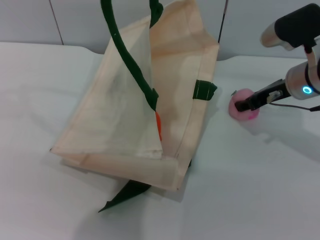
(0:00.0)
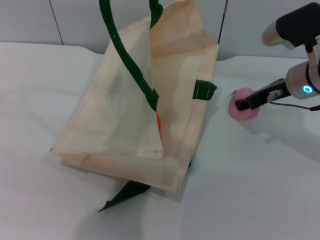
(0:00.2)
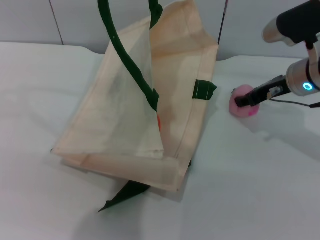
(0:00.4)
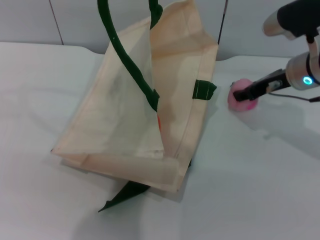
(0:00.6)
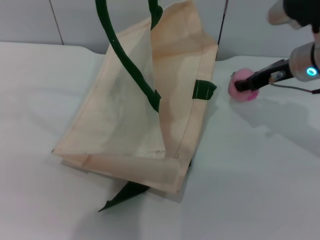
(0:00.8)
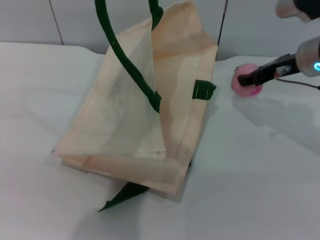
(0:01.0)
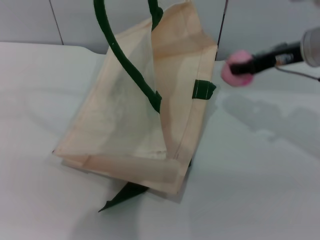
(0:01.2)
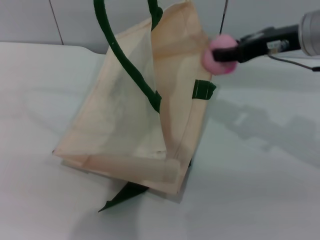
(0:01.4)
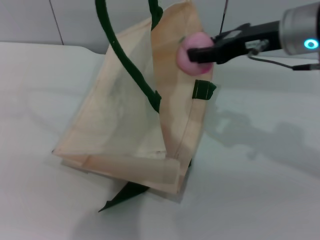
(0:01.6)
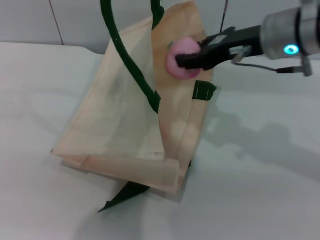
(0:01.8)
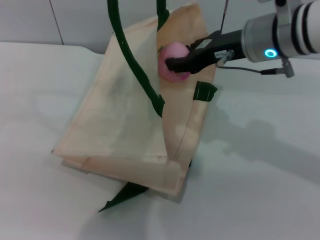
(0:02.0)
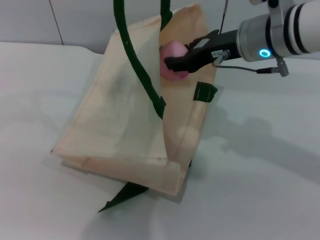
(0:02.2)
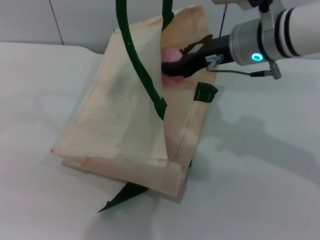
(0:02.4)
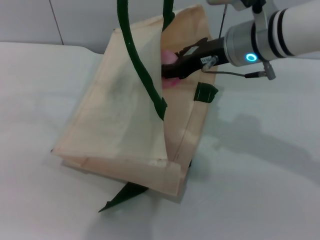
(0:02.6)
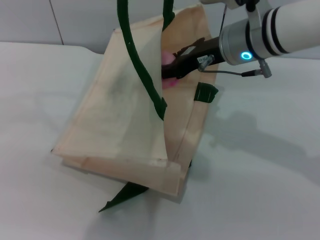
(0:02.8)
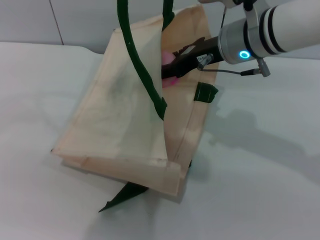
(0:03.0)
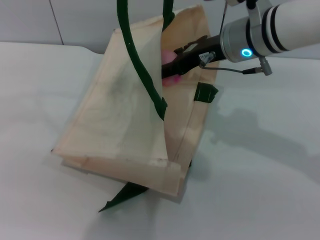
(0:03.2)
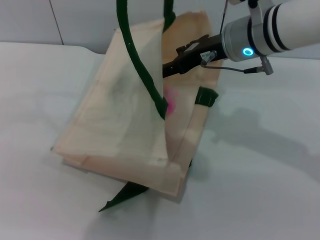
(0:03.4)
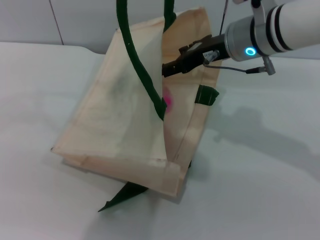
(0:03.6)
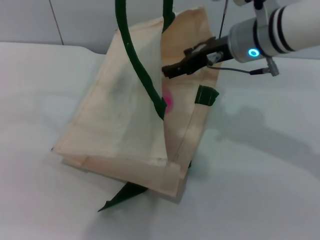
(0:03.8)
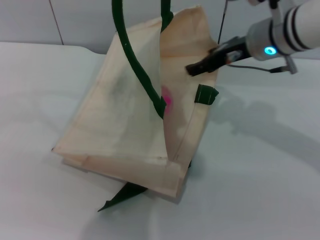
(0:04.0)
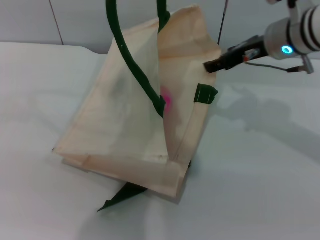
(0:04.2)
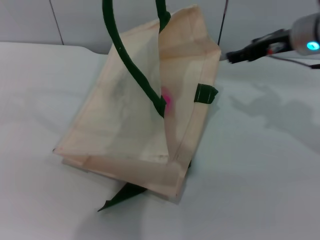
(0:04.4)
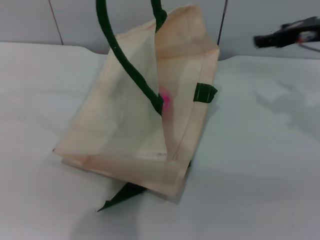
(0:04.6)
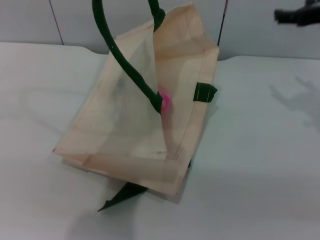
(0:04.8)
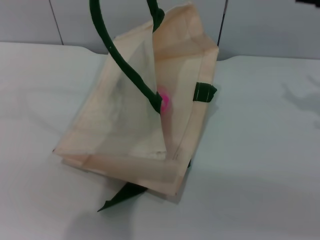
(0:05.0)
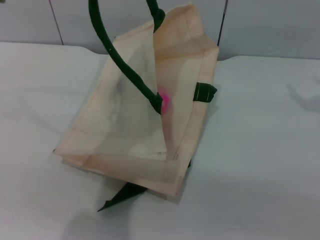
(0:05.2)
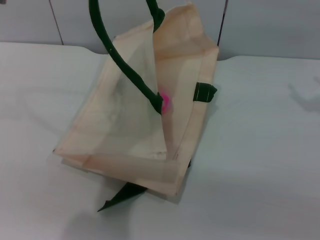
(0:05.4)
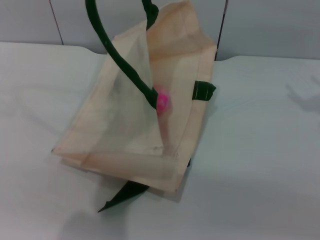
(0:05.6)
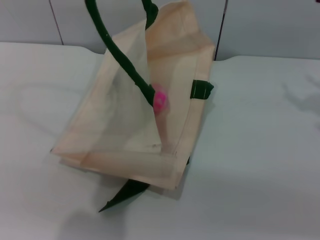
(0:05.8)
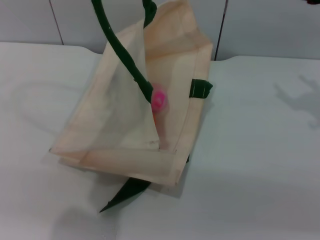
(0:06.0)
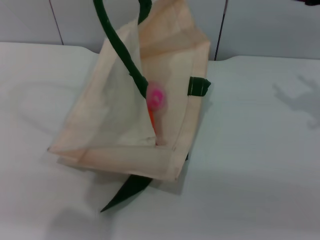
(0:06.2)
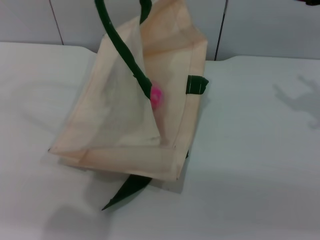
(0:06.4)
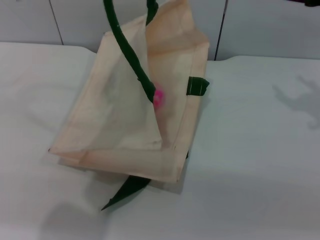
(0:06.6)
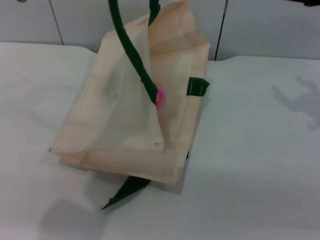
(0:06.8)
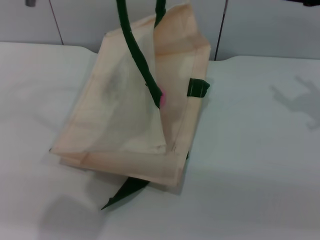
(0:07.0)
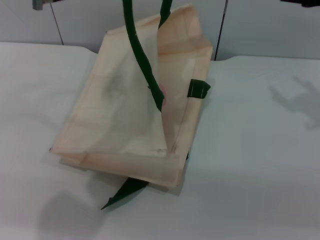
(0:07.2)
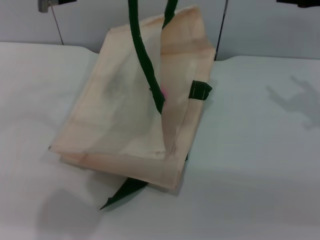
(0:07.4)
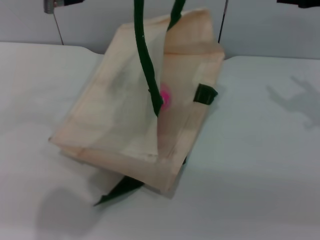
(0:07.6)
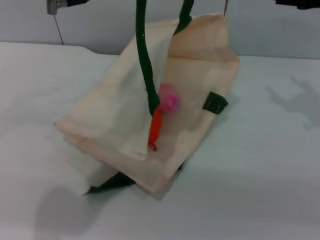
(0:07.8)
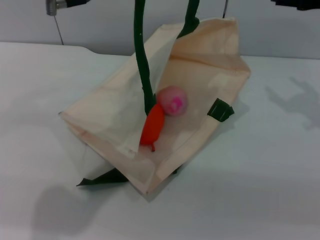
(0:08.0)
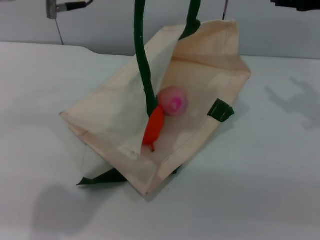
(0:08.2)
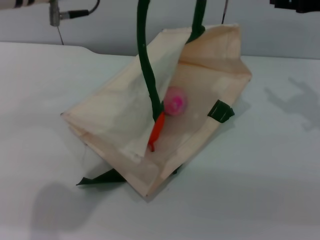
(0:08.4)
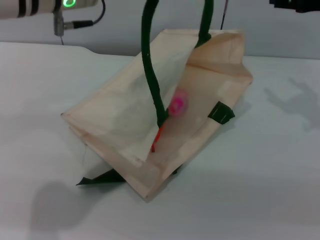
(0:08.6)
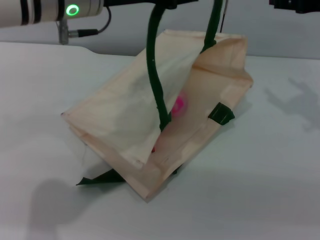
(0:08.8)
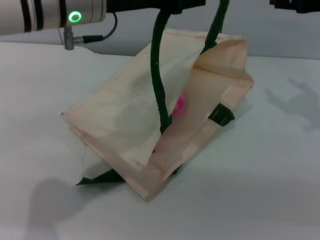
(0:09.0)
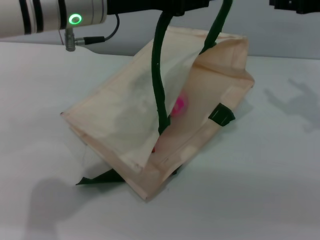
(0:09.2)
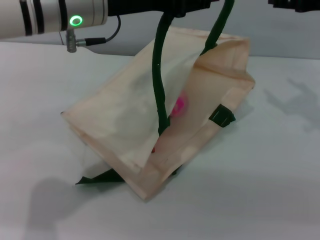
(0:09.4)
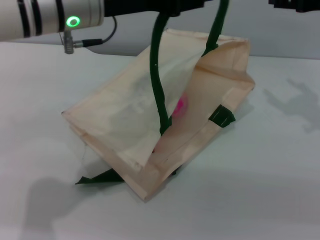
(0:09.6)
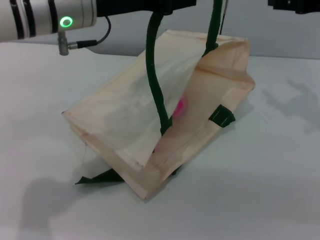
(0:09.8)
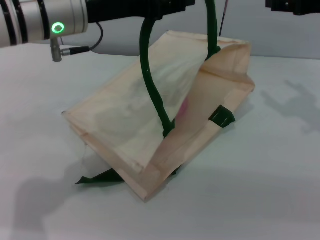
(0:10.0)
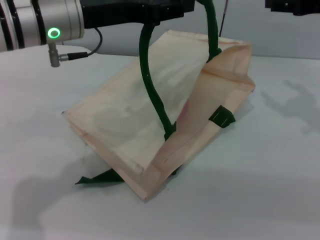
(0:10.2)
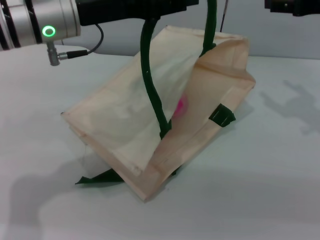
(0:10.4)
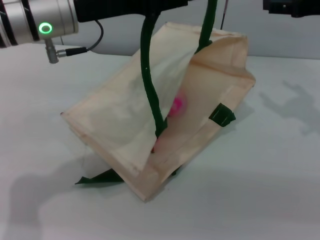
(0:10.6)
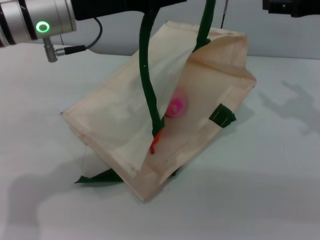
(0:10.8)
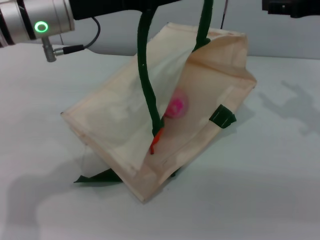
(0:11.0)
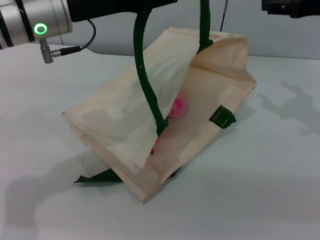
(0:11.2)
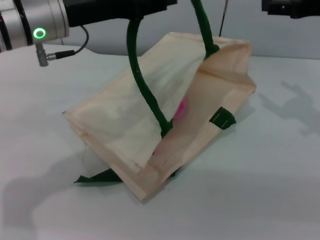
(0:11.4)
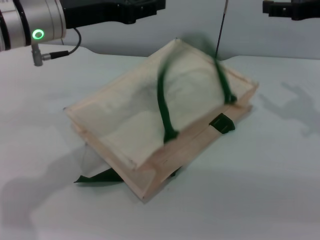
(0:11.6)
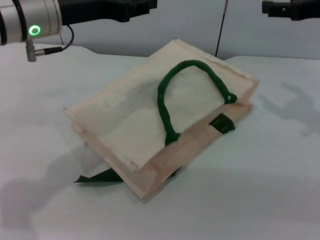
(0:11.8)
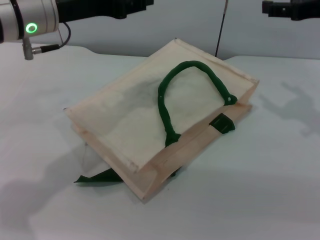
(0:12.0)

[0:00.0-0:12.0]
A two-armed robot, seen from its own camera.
Task of the whole recording: pick up the orange and peach from the table and place it in the white handbag.
Step, 0:01.2 to 0:04.2: Place the peach into the woven bag with the right gripper.
0:00.0 to 0:01.6: The right gripper moves upward, about 10 cm.
0:01.6 to 0:03.0: The right gripper heads to the left, covering approximately 5 cm.
0:03.0 to 0:04.4: The right gripper travels to the right by some 10 cm.
0:04.4 to 0:06.0: The right gripper is displaced to the right by roughly 5 cm.
0:06.0 to 0:07.6: The left gripper opens.
0:07.6 to 0:09.0: There are only small adjustments of the grippers.
0:09.0 to 0:10.4: The grippers stay close to where they were, moving slightly.
0:10.4 to 0:12.0: The grippers stay close to where they were, moving slightly.

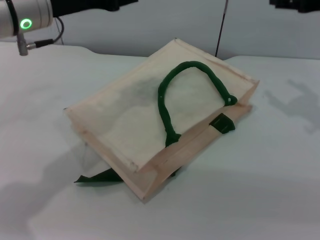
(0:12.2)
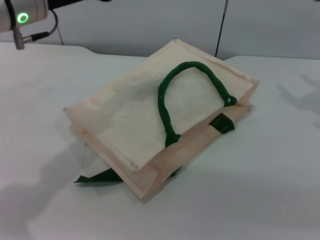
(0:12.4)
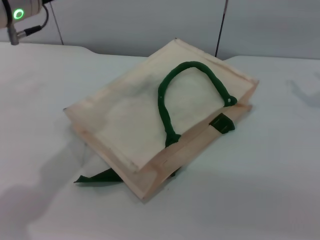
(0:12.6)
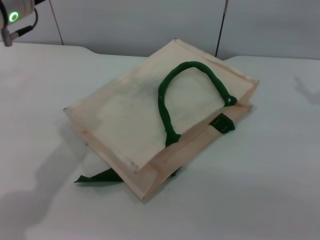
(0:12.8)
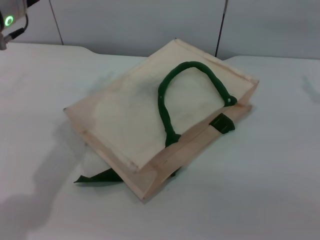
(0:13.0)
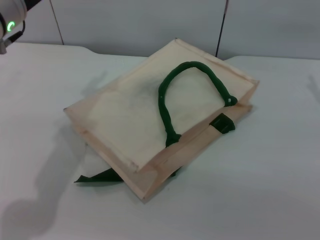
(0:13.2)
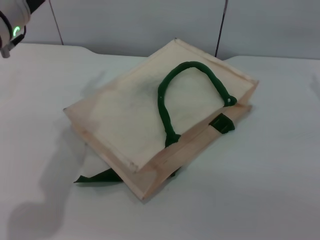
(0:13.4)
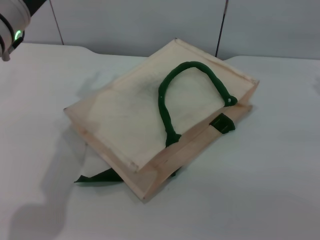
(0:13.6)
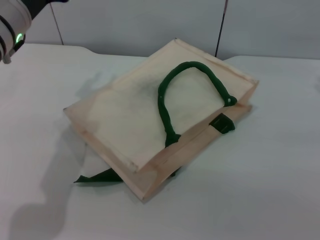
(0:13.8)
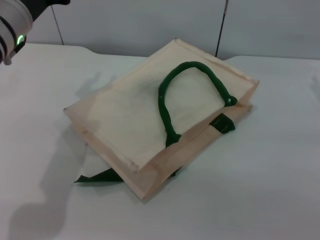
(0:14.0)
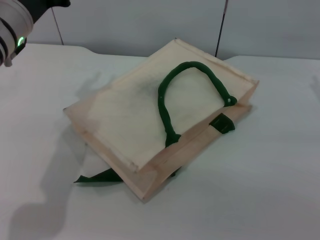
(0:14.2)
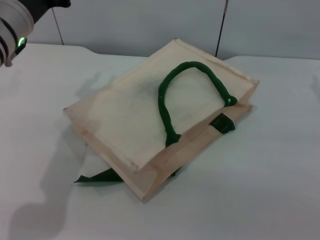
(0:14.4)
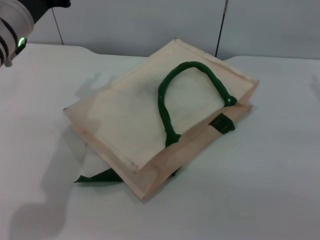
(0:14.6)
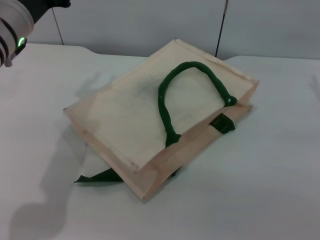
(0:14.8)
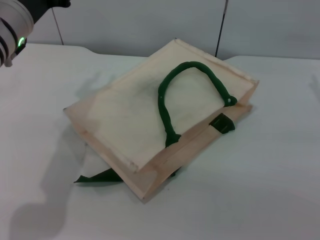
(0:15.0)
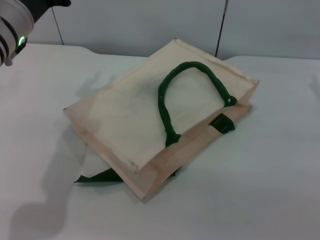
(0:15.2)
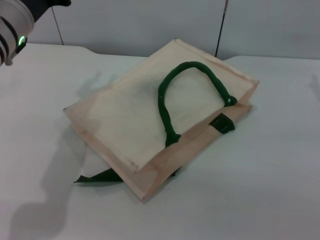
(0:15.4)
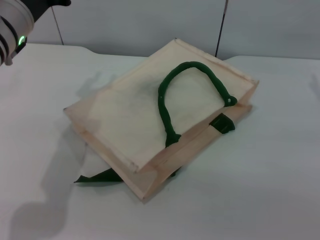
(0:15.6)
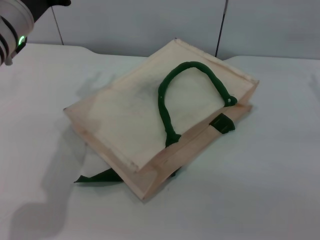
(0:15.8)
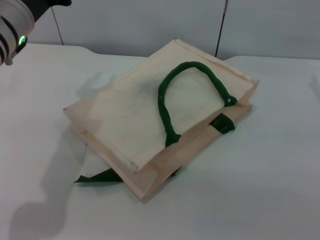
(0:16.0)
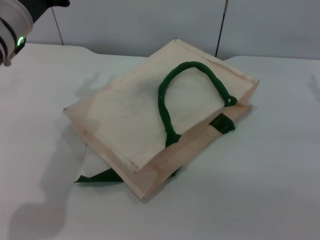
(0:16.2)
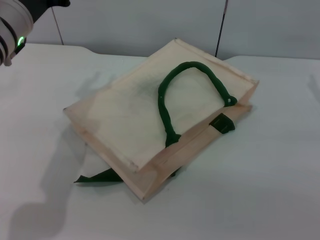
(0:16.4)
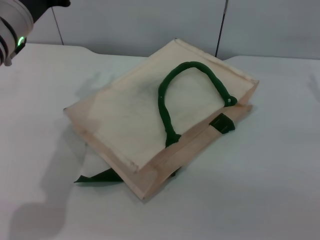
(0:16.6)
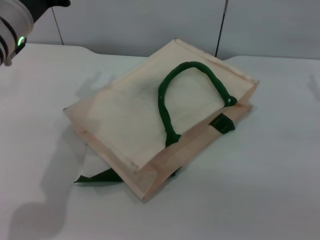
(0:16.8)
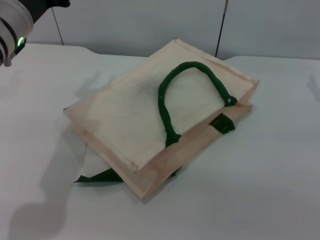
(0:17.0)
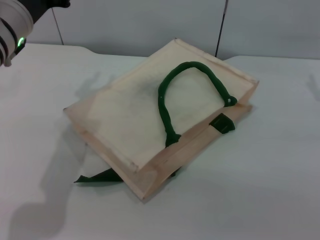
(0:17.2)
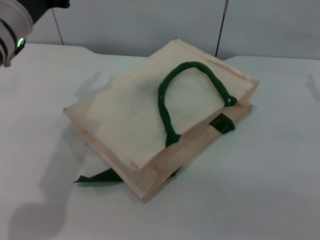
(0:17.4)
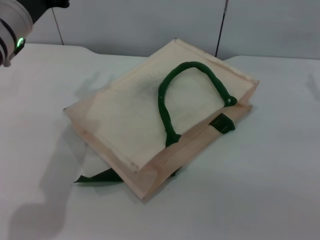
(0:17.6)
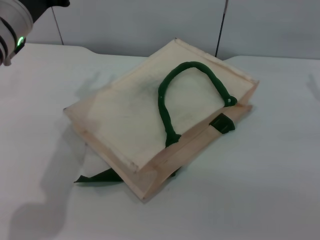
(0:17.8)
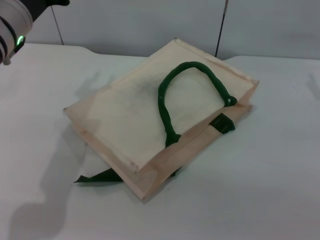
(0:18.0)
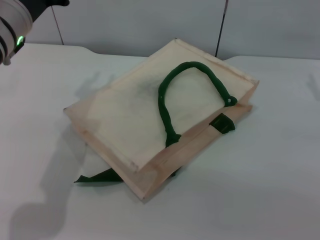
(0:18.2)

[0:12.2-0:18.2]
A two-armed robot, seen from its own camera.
Task of the whole recording: pick up the orange and peach from the table and place it in the white handbag.
0:12.2 to 0:13.8: The right gripper is displaced downward by roughly 5 cm.
0:13.8 to 0:18.2: Both grippers stay put.

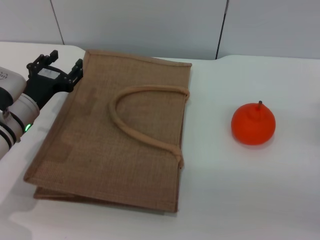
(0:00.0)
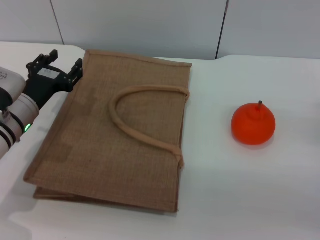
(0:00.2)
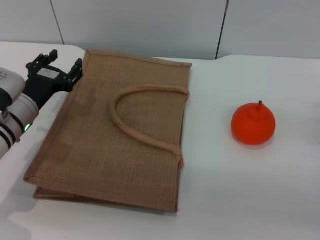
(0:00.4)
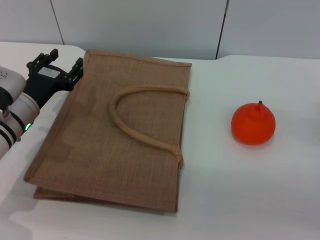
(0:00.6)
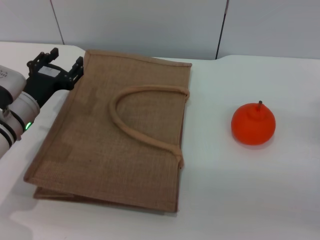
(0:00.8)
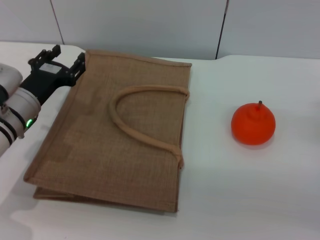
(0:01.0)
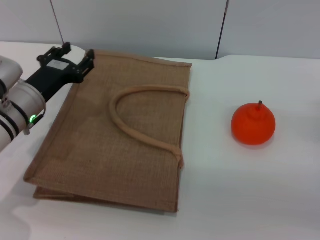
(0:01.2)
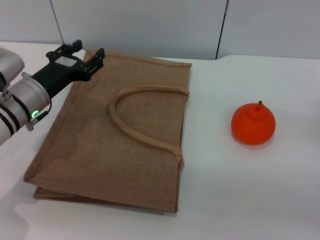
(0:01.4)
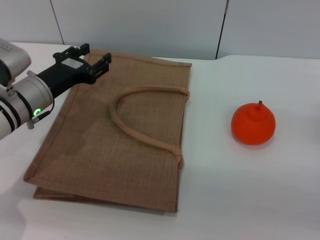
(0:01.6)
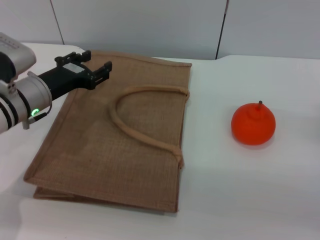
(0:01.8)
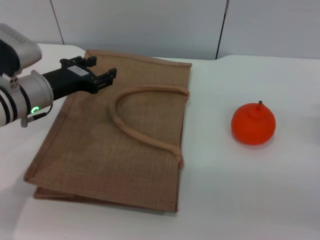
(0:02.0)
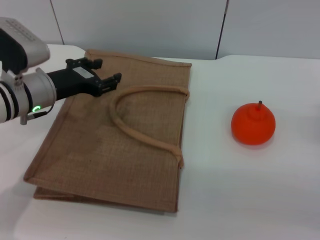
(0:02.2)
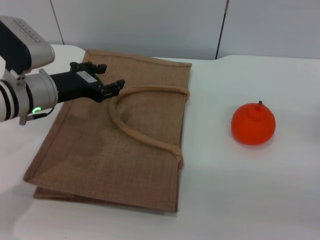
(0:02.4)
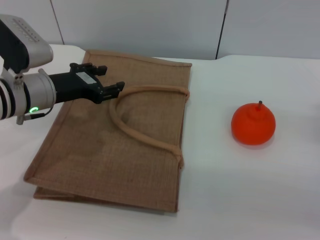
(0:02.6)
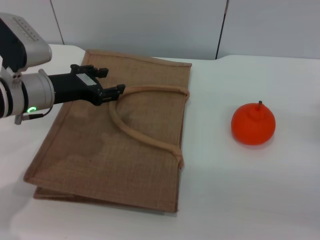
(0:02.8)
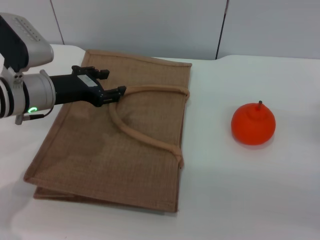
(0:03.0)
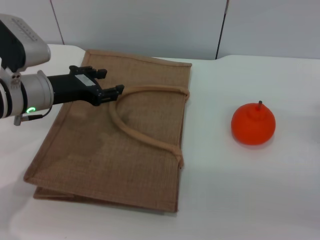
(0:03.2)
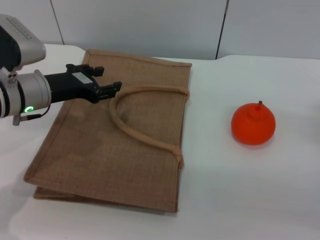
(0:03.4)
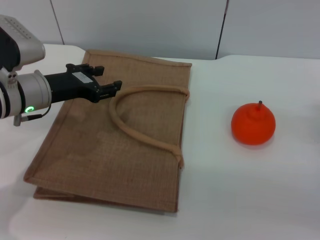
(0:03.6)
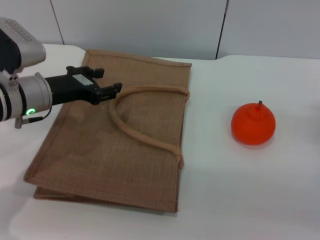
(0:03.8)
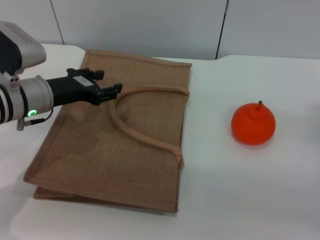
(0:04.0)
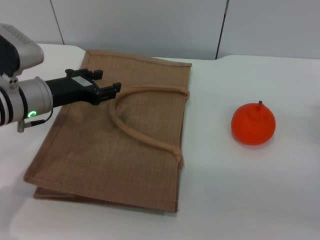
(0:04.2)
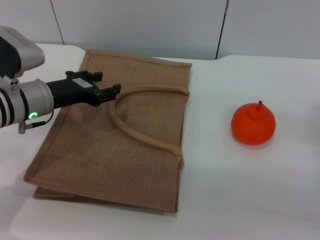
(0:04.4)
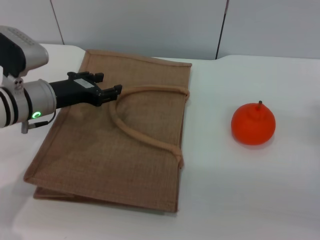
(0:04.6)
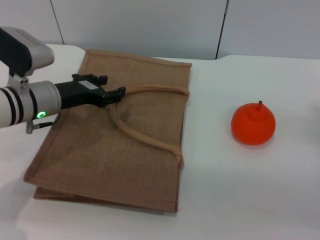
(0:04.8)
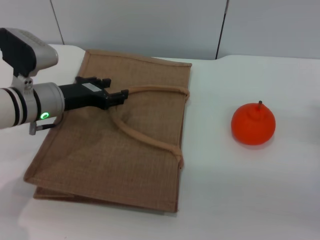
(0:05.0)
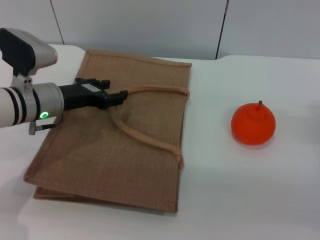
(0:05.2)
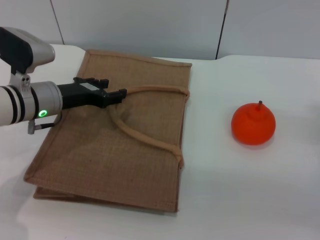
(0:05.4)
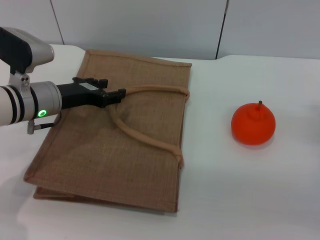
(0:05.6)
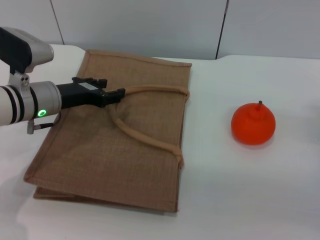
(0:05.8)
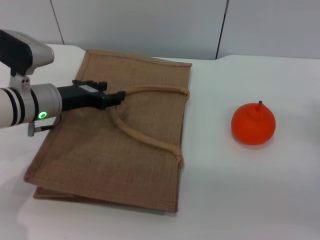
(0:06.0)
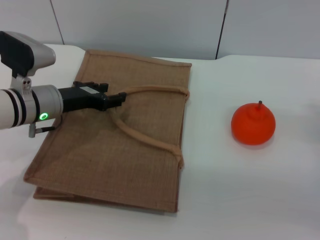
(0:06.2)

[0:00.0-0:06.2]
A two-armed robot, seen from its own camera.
Task of the whole recording: pick up the orange from the table and place it in the brown handbag.
0:00.0 to 0:01.6: The grippers stay close to where they were, moving slightly.
0:03.2 to 0:06.2: The grippers make only small movements.
